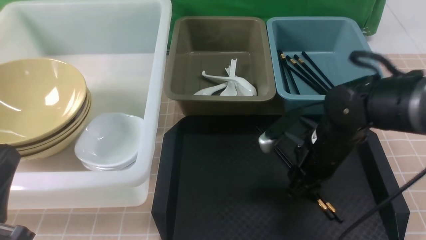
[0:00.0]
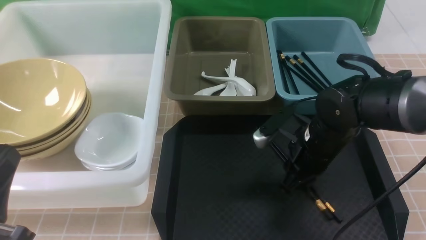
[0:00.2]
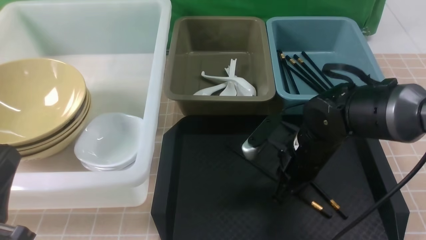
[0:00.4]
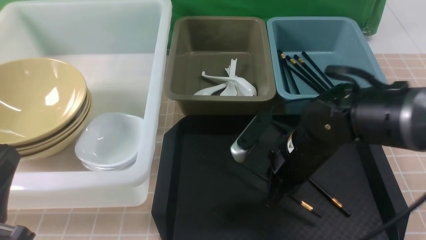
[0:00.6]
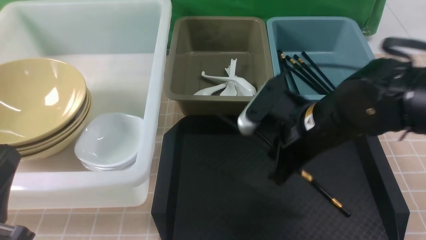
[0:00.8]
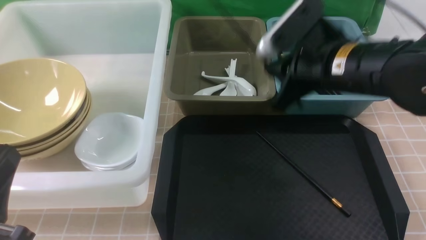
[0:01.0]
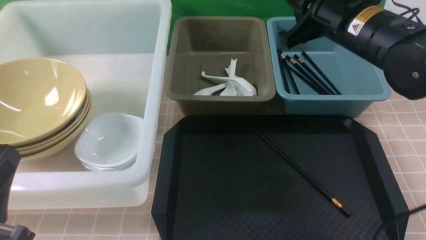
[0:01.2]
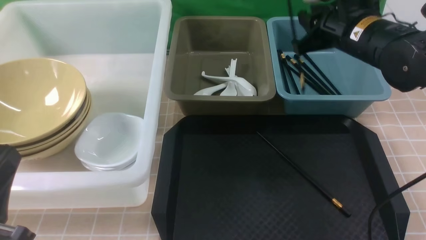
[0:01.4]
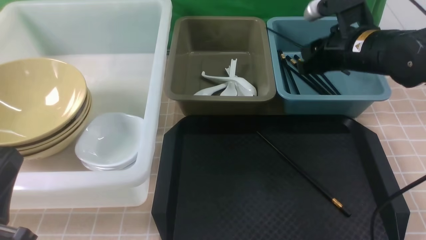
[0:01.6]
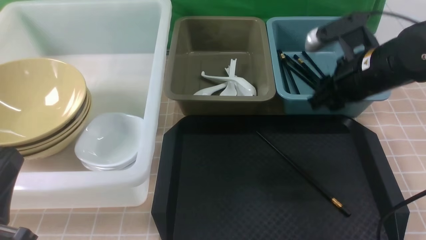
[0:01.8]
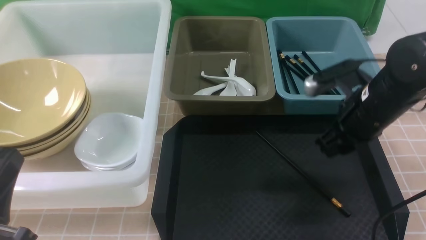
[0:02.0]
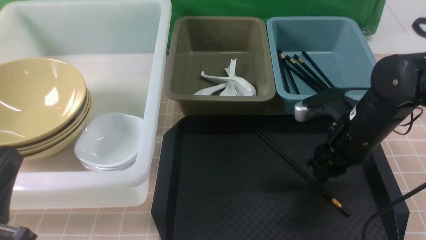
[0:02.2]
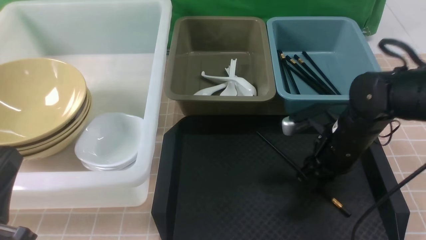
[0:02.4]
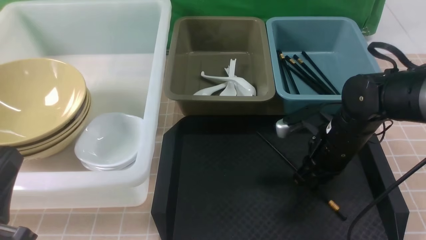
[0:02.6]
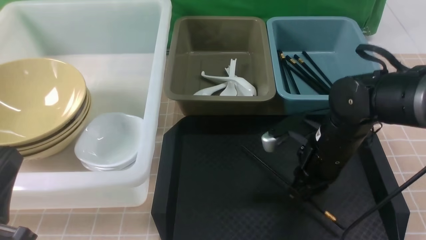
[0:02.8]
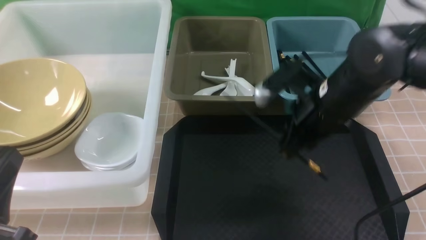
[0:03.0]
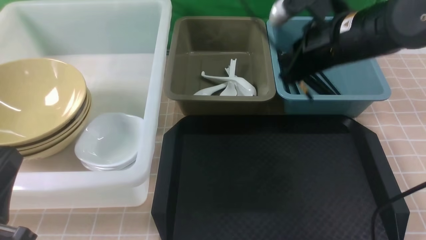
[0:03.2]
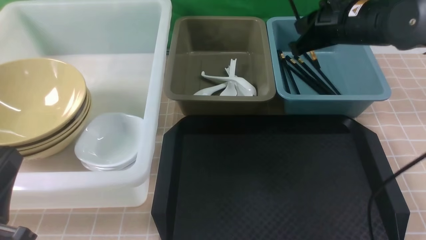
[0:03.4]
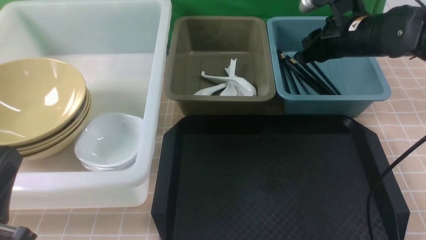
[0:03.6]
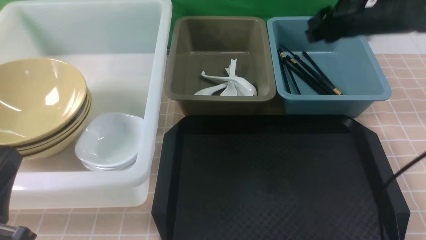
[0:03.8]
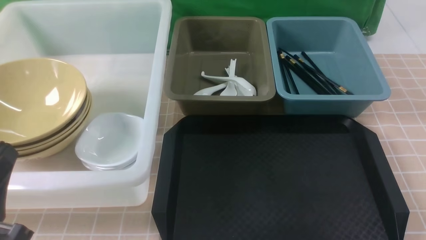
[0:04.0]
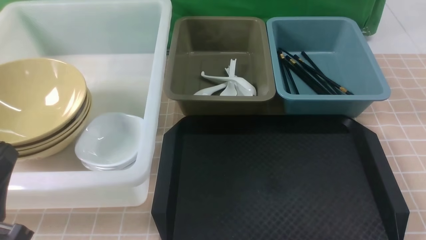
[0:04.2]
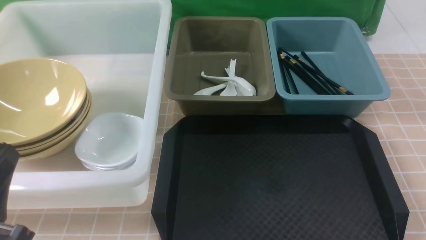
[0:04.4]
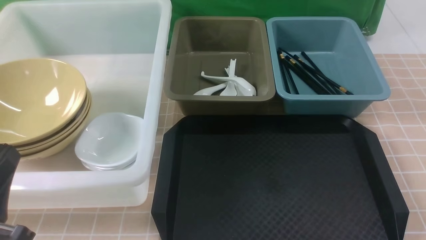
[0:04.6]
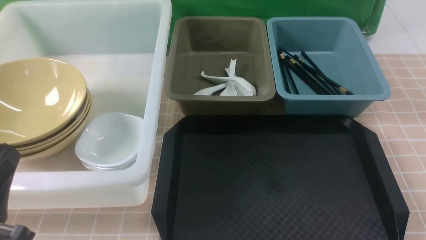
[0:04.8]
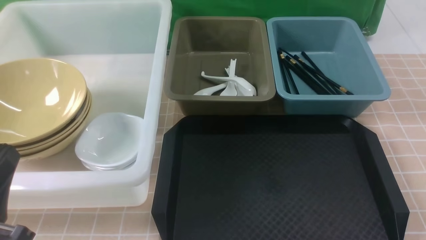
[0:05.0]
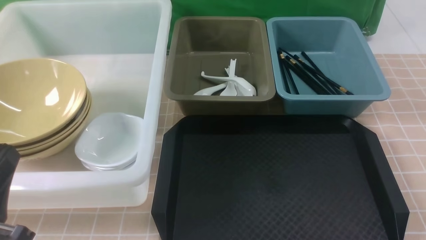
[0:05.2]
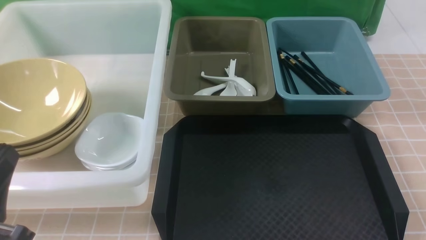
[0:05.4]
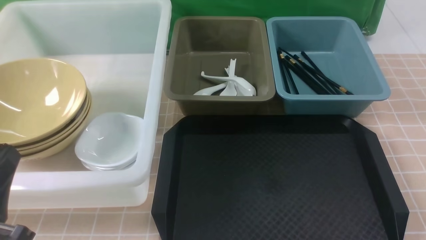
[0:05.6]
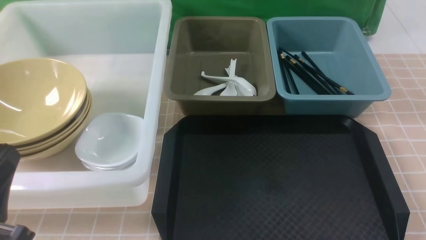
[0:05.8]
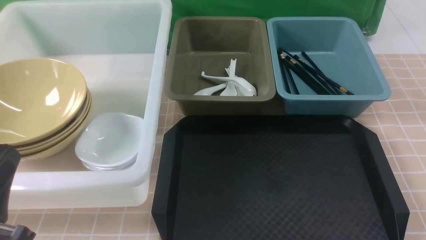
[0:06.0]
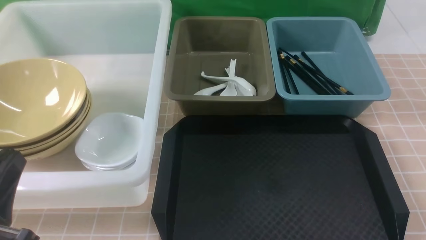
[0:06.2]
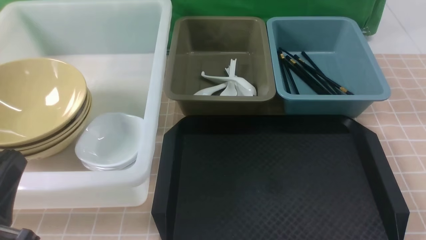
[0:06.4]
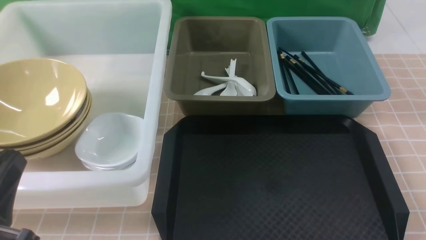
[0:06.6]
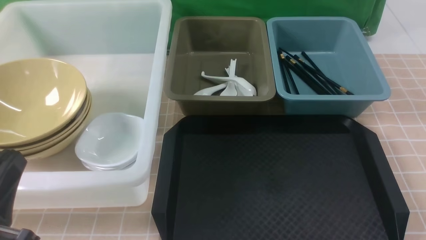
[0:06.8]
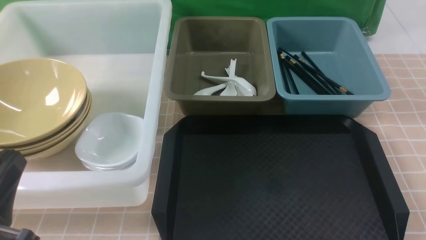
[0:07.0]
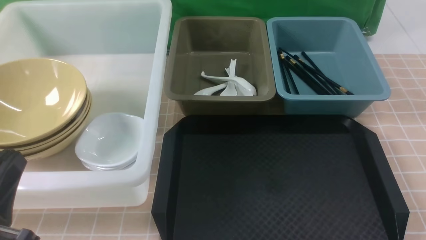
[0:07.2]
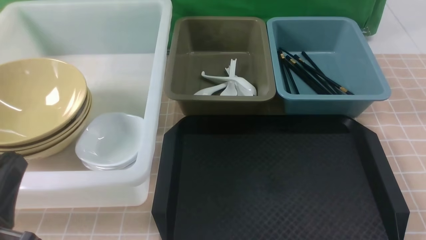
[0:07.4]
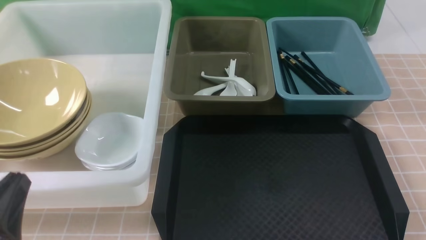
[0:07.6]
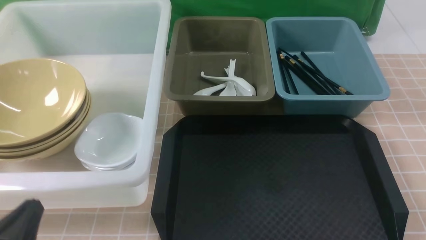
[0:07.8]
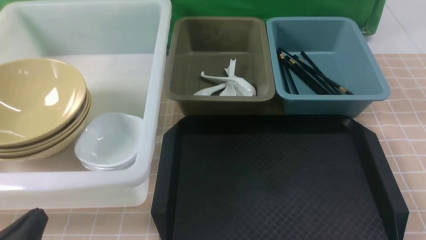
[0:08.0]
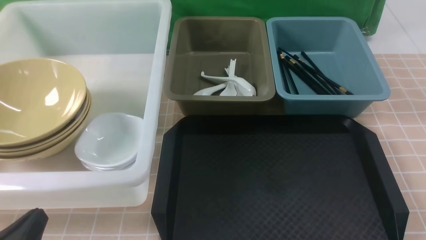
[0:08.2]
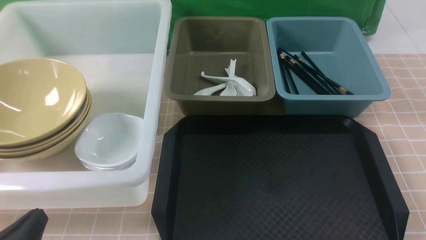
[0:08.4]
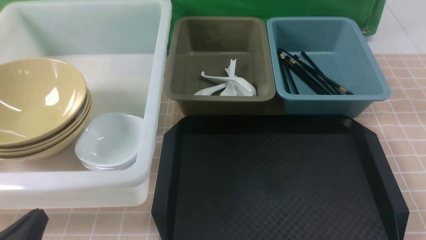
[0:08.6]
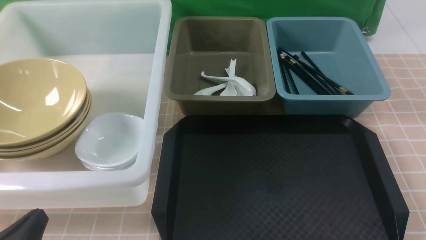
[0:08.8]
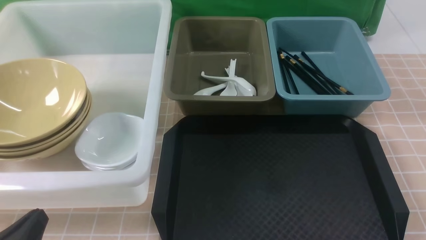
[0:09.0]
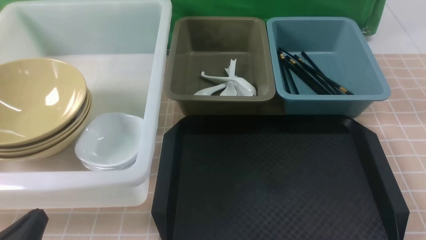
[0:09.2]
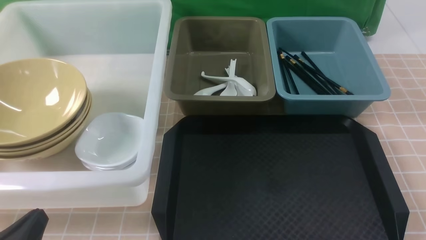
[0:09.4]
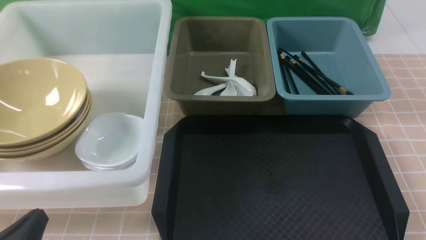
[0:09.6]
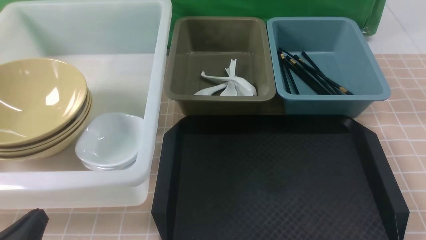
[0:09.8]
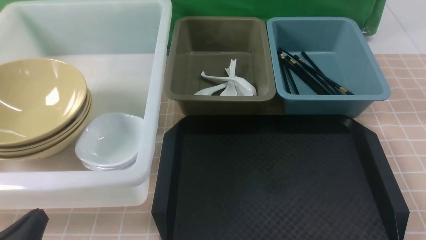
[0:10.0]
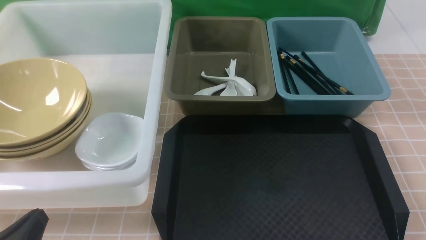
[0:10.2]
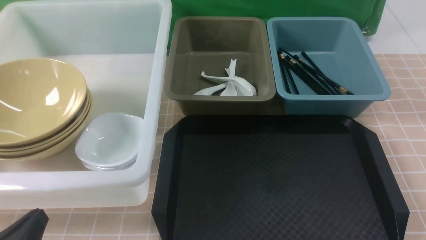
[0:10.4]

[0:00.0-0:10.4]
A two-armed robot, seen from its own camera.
Task of the whole recording: on brown table put chopsticks spoon bowls plates into blue grey white boxes.
Step, 0:00.0 to 0:00.8: use the right arm to grab a chopstick.
Step, 0:01.0 to 0:01.8: use the right arm to put a chopstick into the small storage box on the right.
Step, 0:02.0 to 0:03.0: use the right arm to grab a chopstick.
Step, 0:03.2 to 0:04.0: use the right arm to put a chopstick into the small storage box on the right.
0:00.0 to 0:01.4: The right gripper moves upward and forward, roughly 15 cm, and closes, then reopens.
0:01.4 to 0:03.0: The right gripper heads backward, covering roughly 5 cm, moves roughly 15 cm downward and comes back, and closes its fingers.
0:03.0 to 0:04.4: The right gripper travels backward, to the right and upward by approximately 25 cm, and opens, then closes once more.
0:06.0 to 0:07.4: There are only small adjustments of the grippers.
0:07.4 to 0:09.0: The left gripper is displaced downward by roughly 5 cm.
0:09.0 to 0:10.4: Neither gripper changes place.
